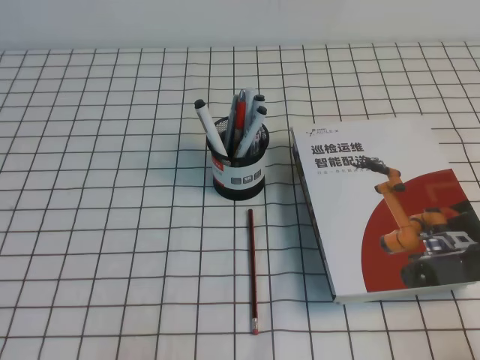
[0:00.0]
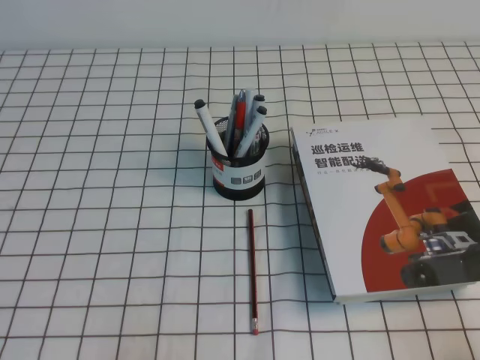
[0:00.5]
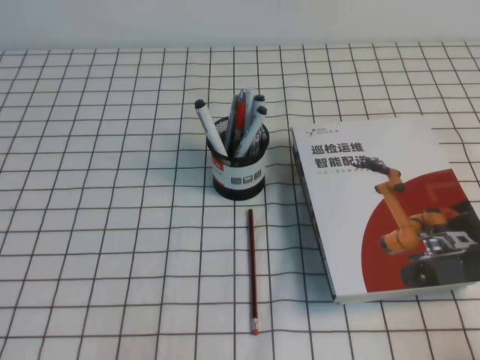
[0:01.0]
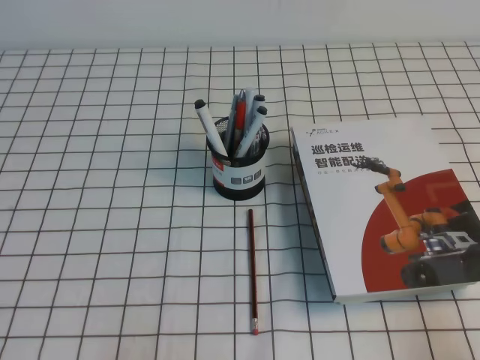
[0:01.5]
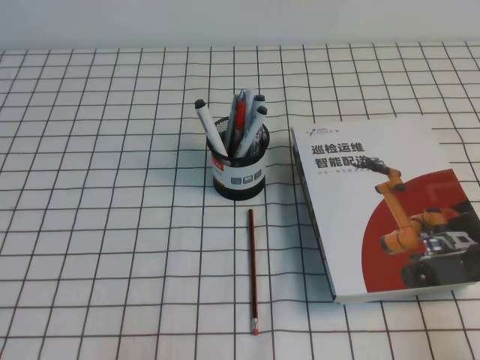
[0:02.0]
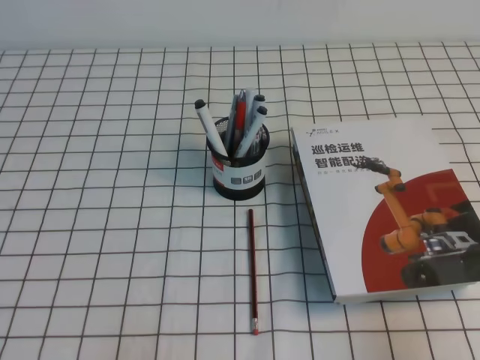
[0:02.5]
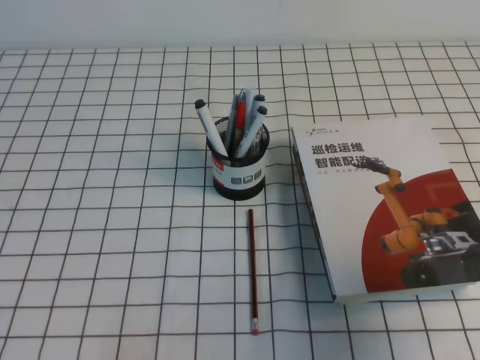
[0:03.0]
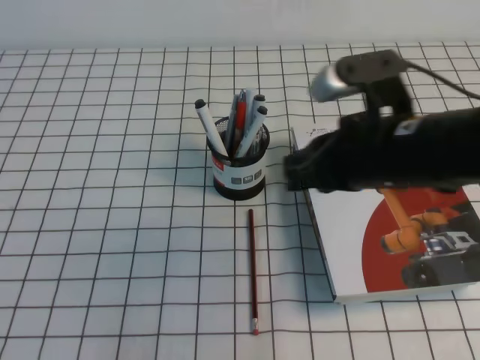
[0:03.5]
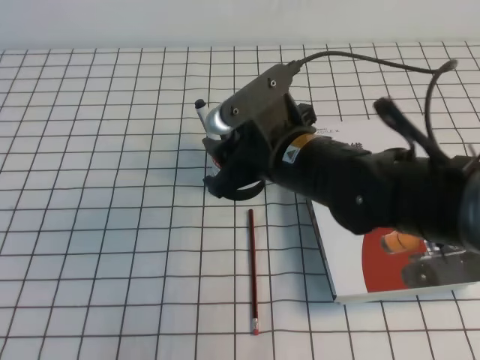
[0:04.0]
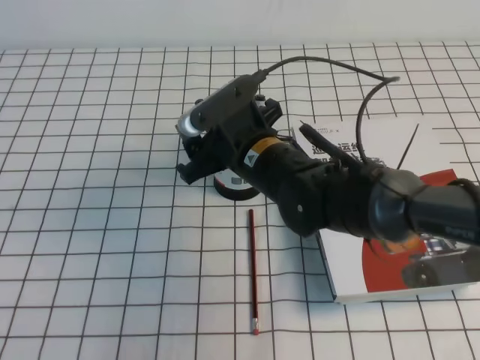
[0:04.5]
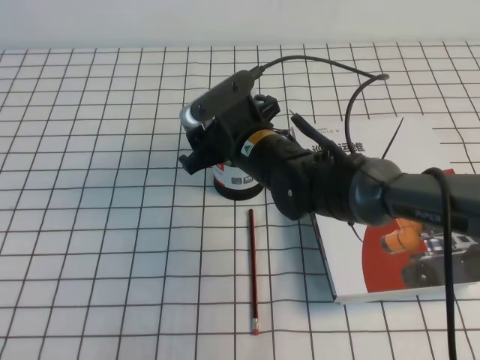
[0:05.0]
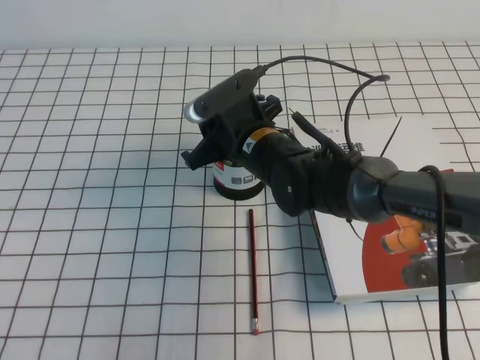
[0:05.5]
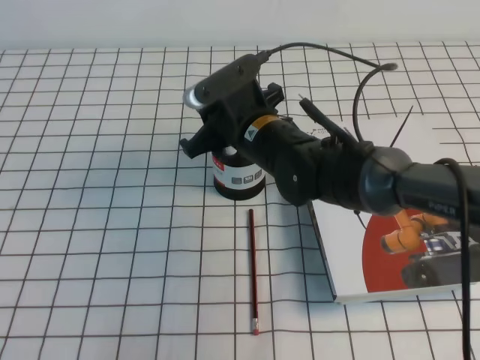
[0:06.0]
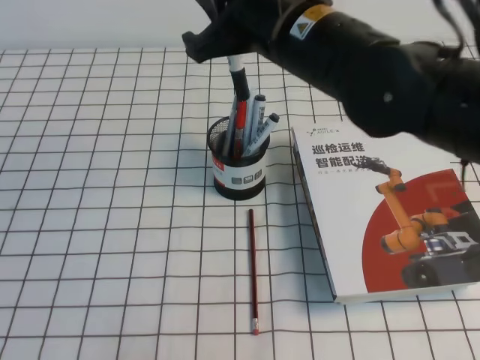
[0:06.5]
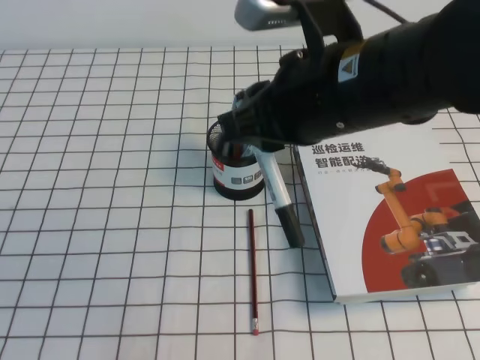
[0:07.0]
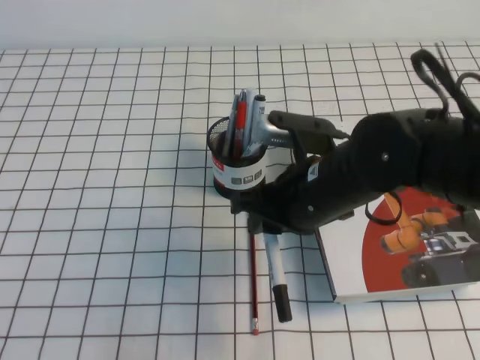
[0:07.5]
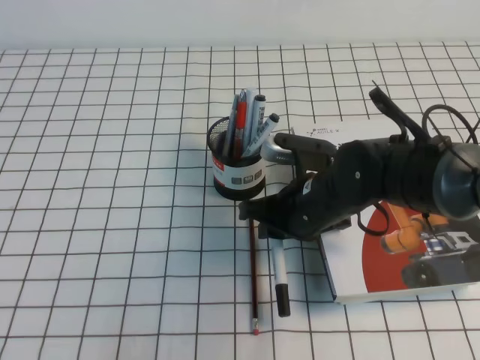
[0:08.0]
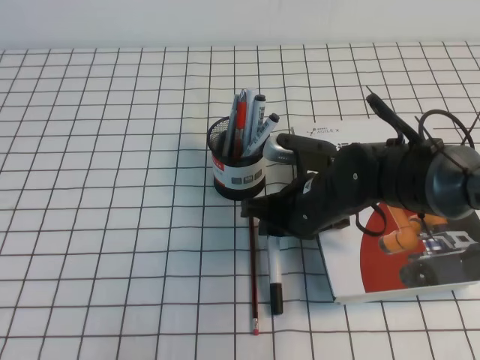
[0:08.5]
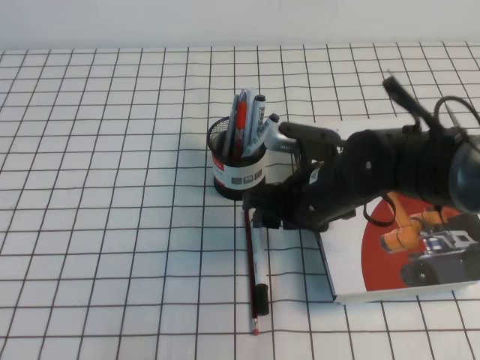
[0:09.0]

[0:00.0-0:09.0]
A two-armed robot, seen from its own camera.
0:02.0 to 0:04.5: The right gripper heads to the left and forward, covering approximately 40 cm, and opens its fingers.
0:04.5 to 0:07.0: The right gripper heads upward, backward and to the right, covering about 20 cm, and closes up.
0:07.0 to 0:09.0: The right gripper shifts approximately 15 cm downward, and opens its fingers.

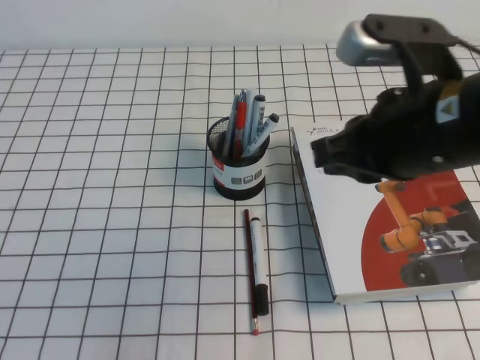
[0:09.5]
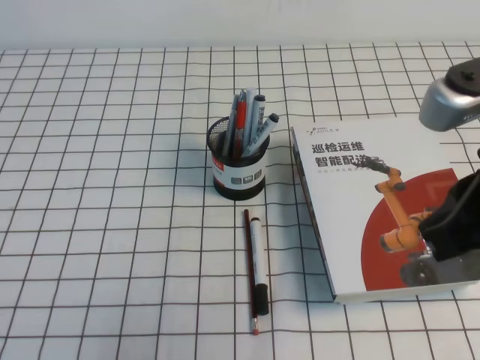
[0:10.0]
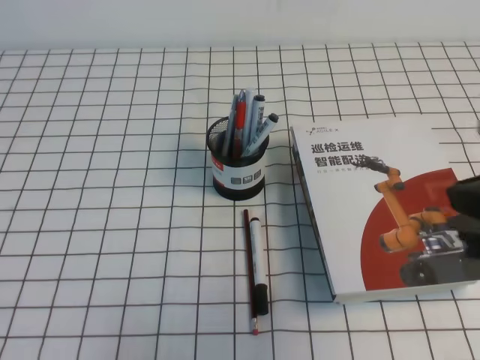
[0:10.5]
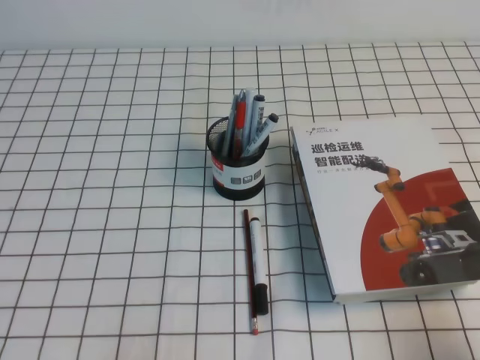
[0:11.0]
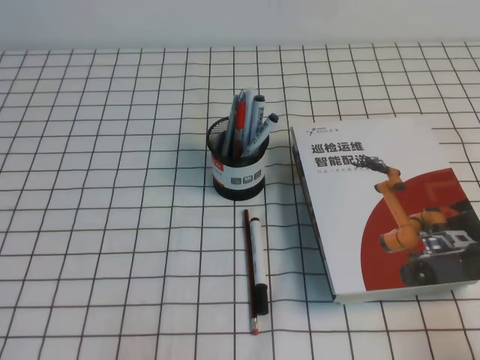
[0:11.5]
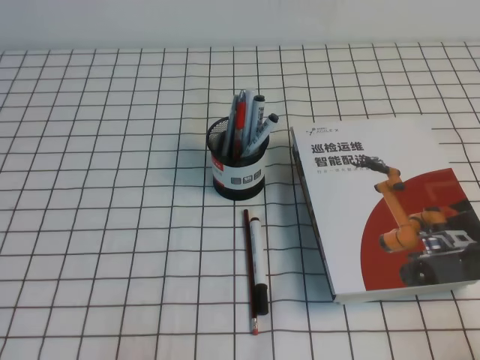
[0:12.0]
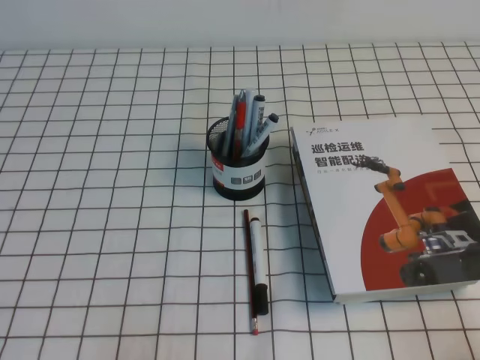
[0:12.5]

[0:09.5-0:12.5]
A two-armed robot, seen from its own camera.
Step, 0:09.5 to 0:12.5: Pick up the pen from the pen holder.
0:09.5 to 0:11.0: The right gripper goes about 25 cm to the right, backward and downward.
